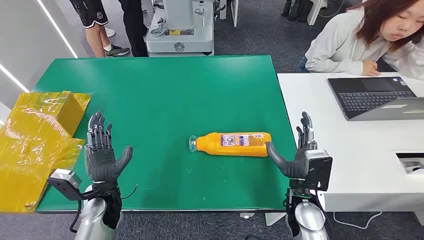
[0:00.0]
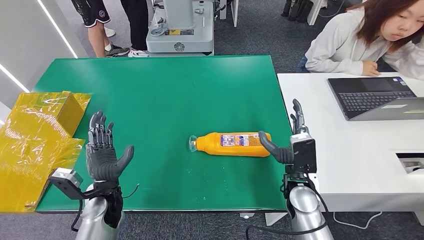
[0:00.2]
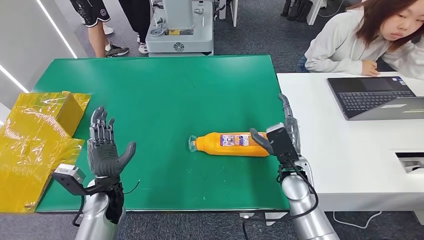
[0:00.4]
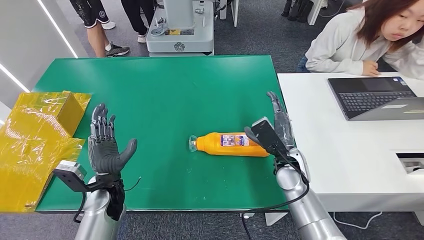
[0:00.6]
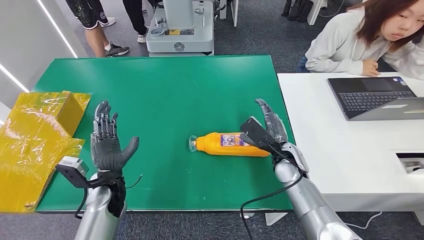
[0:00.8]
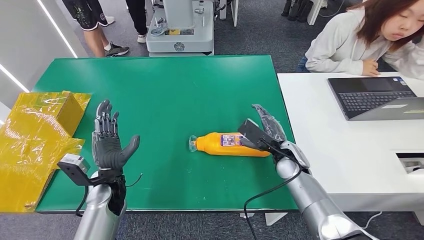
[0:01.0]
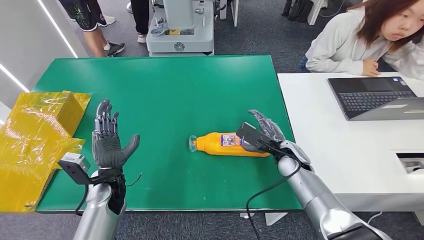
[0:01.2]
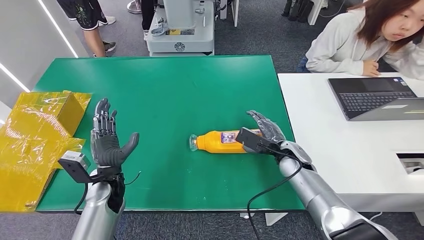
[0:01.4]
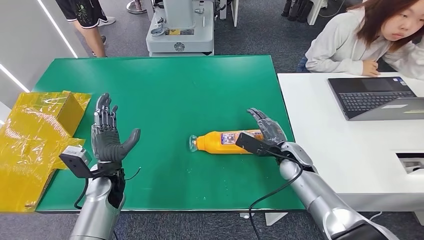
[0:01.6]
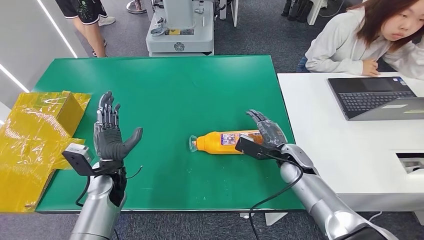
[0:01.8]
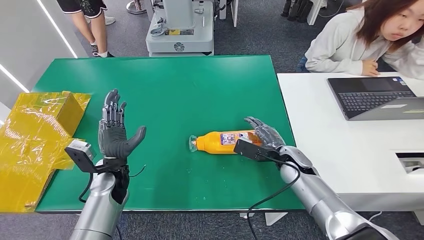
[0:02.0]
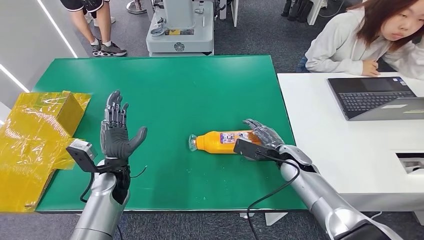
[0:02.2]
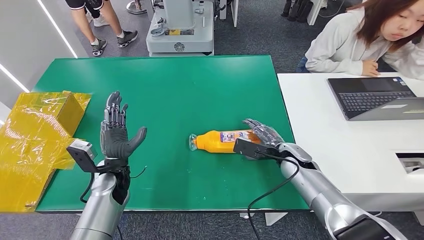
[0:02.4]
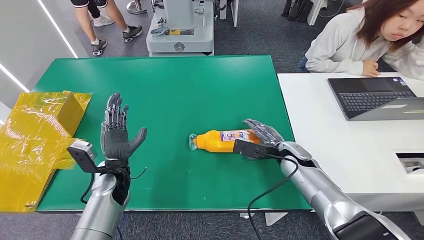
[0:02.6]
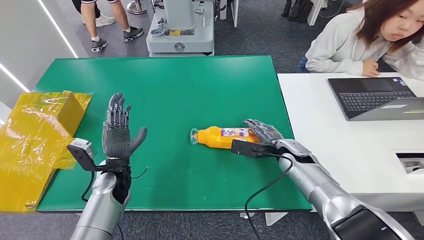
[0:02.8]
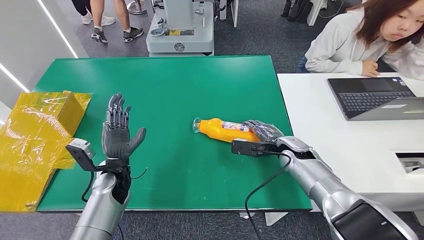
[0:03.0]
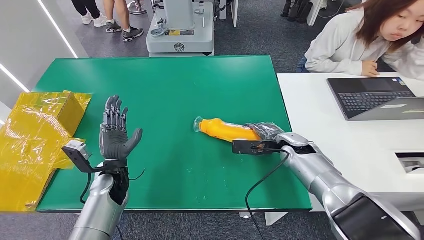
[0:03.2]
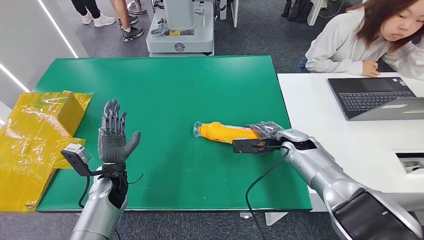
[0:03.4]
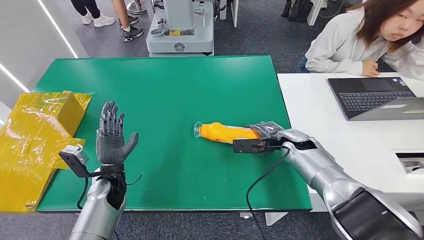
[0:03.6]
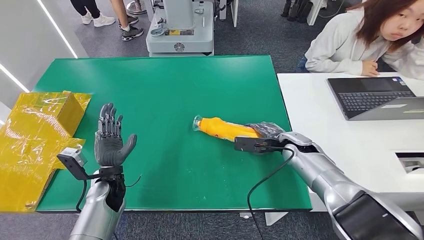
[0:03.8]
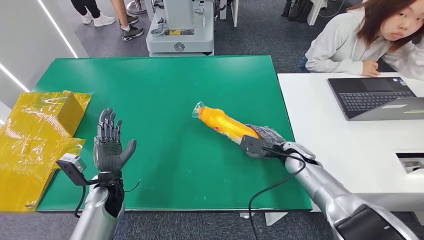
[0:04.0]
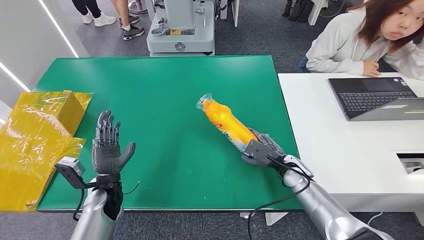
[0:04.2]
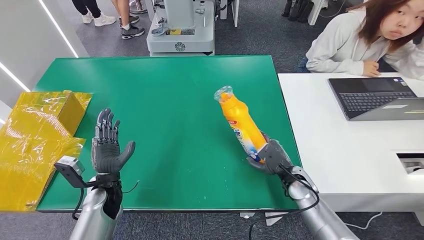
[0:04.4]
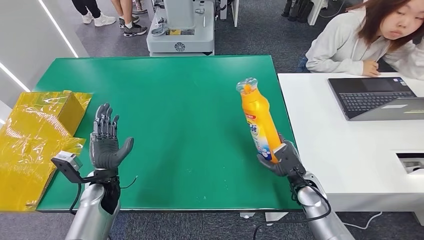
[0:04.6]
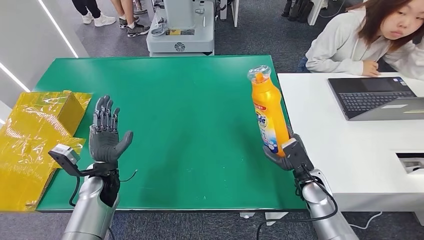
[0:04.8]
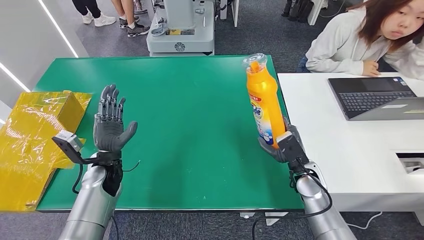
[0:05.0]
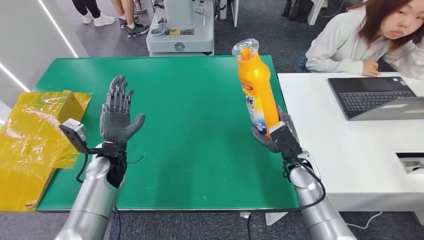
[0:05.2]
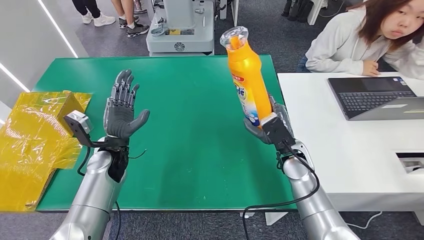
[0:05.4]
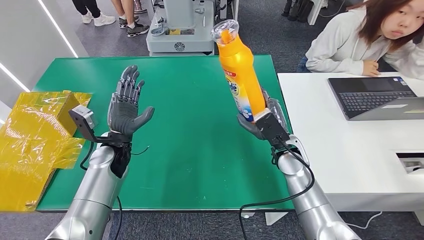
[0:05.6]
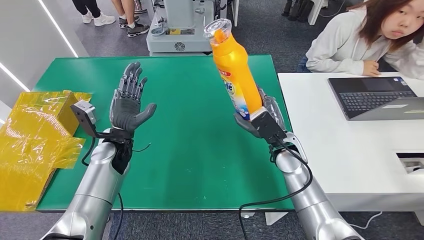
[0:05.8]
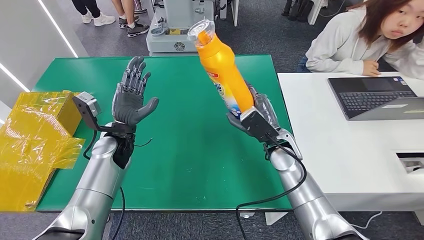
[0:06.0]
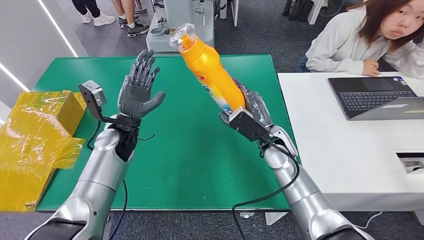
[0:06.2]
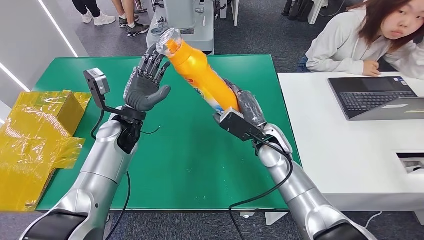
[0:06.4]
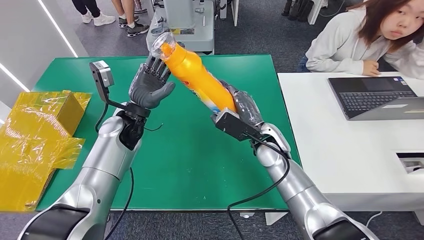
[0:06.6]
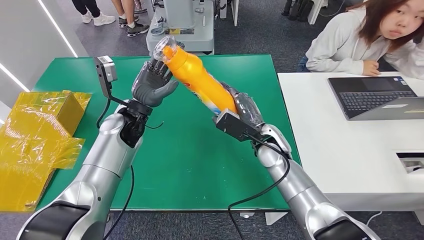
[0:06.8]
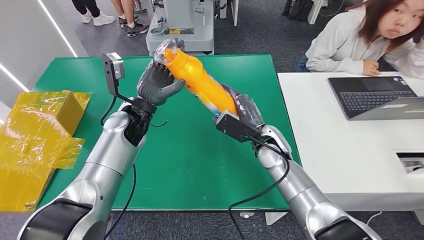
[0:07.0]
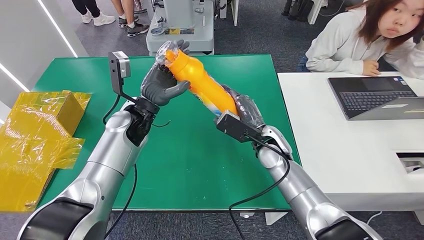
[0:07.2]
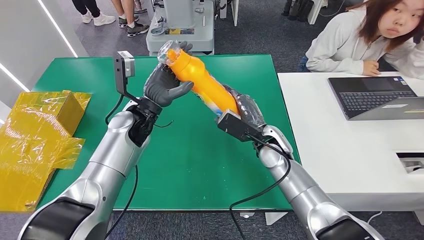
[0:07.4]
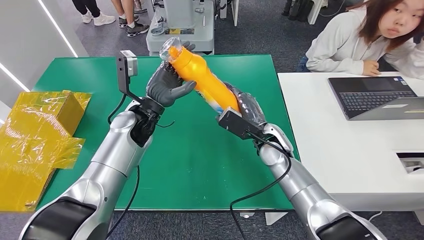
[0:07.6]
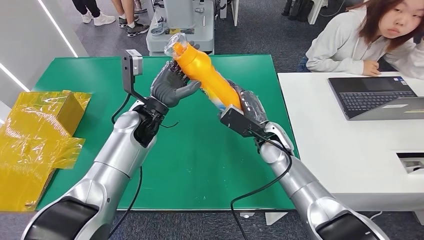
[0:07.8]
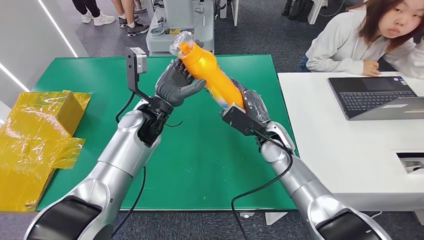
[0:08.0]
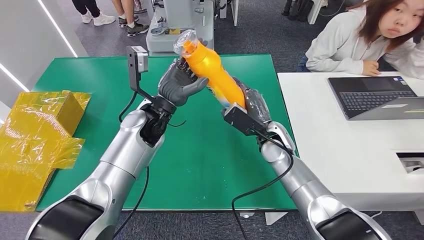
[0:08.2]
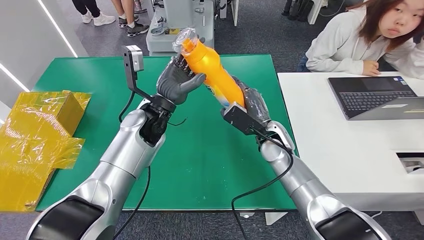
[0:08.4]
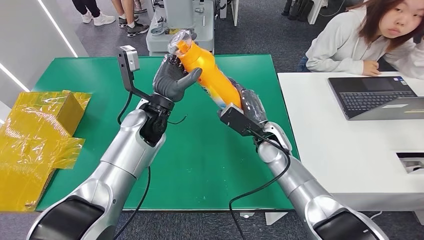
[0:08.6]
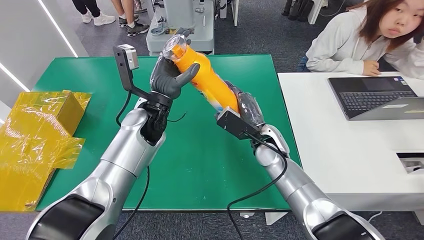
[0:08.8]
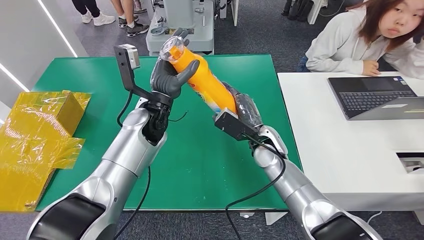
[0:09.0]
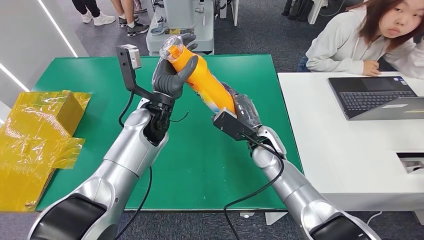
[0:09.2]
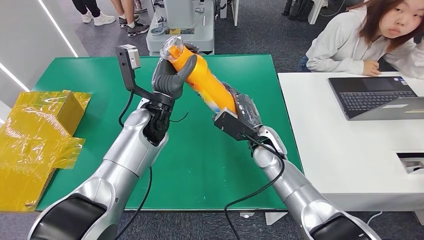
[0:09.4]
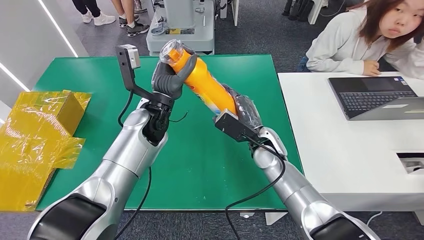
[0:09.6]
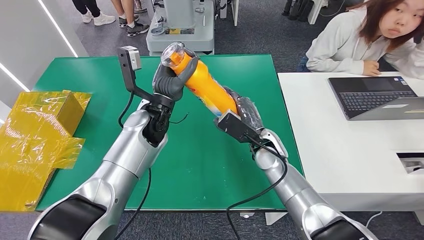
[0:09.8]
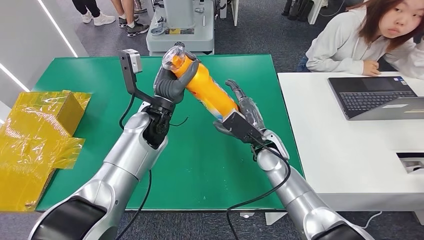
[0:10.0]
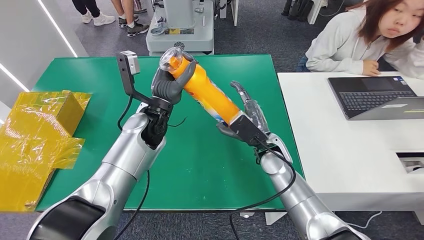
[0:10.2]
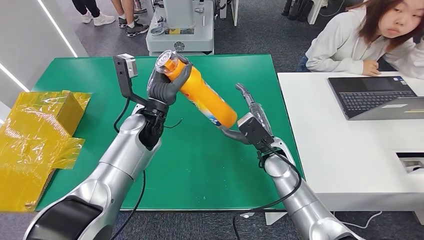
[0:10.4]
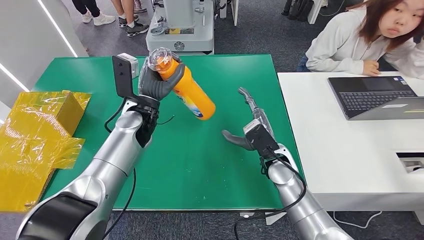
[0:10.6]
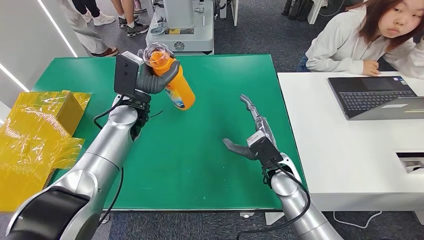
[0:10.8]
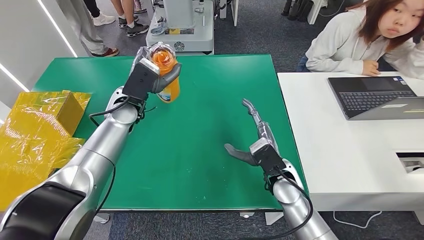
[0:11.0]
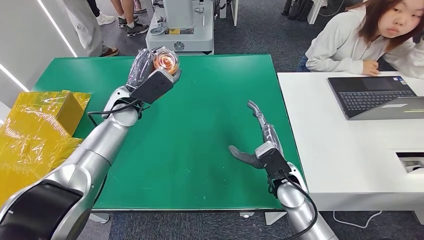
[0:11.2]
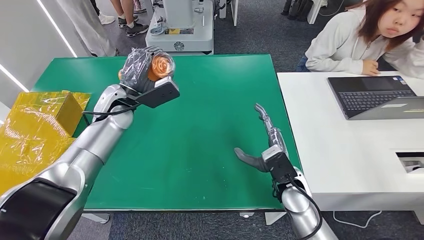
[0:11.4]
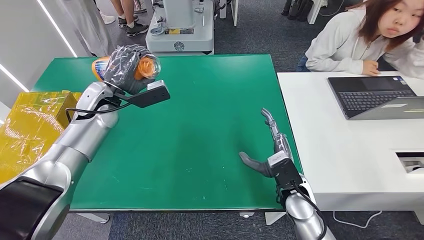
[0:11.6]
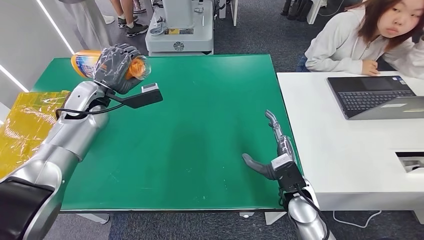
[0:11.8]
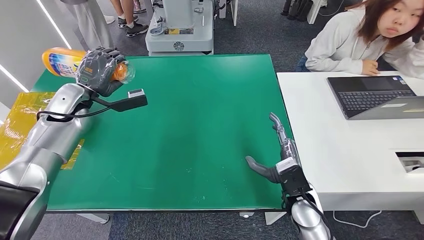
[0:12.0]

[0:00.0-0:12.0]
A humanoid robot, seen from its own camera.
Step, 0:00.0 to 0:05.6: Pick up the bottle from the table.
0:03.0 to 0:04.4: The right hand moves backward and downward, some 10 cm.
0:04.4 to 0:06.0: The left hand travels upward and forward by roughly 15 cm. Meanwhile the right hand goes about 15 cm upward, to the left and forward.
0:06.0 to 0:07.6: The left hand heads to the right and upward, covering about 10 cm.
0:07.6 to 0:10.4: There are only small adjustments of the hands.

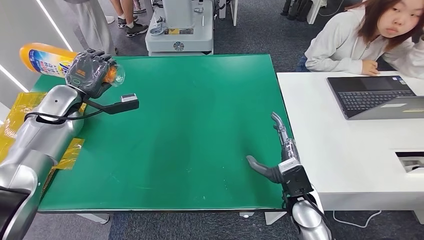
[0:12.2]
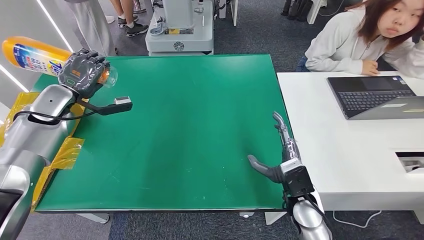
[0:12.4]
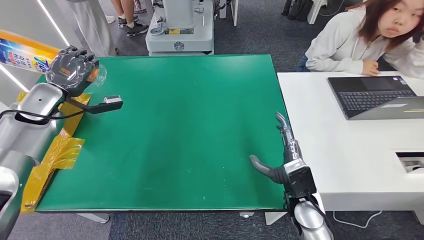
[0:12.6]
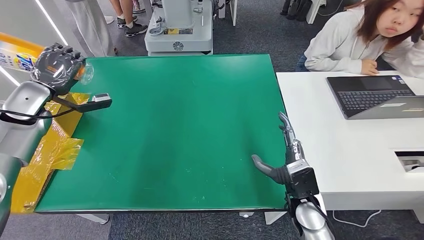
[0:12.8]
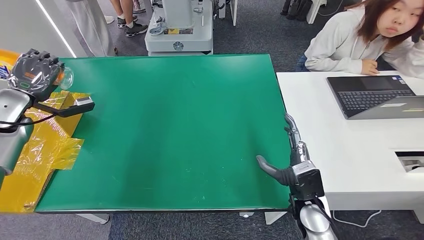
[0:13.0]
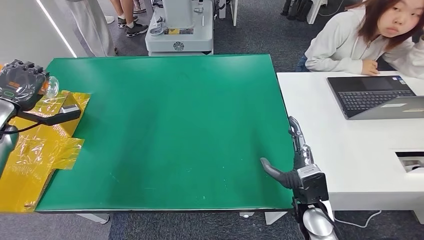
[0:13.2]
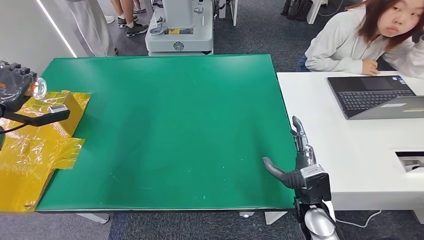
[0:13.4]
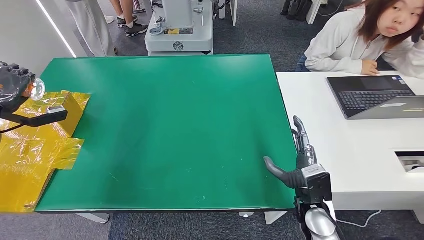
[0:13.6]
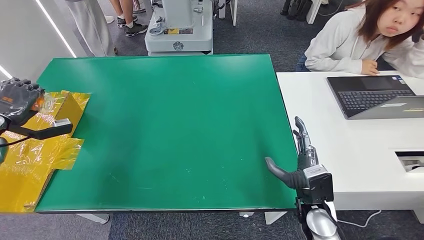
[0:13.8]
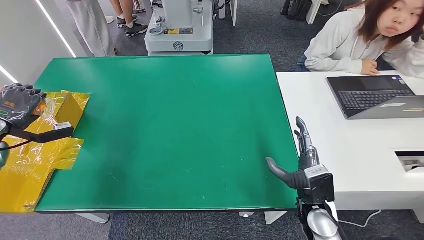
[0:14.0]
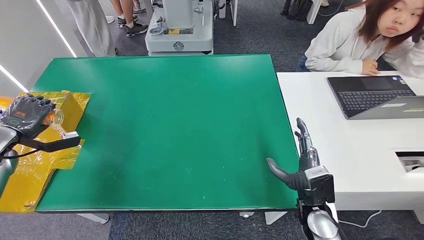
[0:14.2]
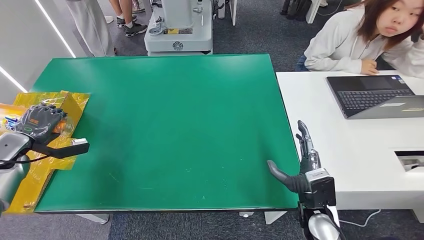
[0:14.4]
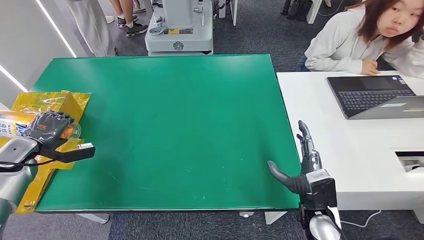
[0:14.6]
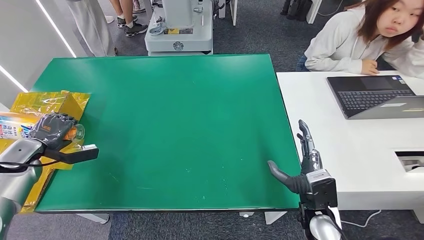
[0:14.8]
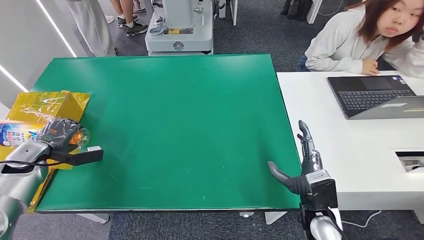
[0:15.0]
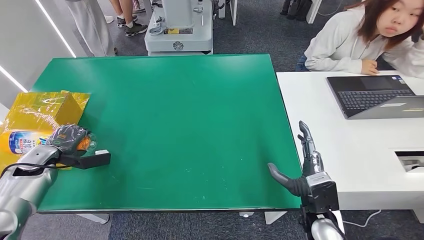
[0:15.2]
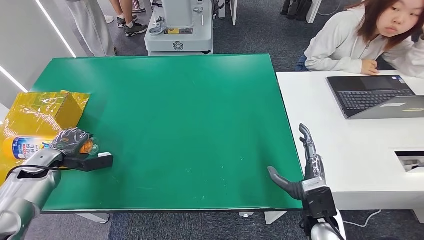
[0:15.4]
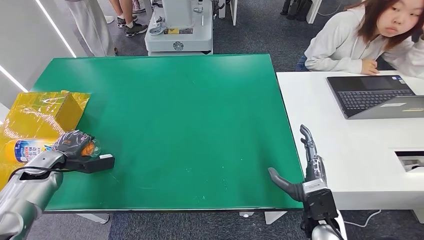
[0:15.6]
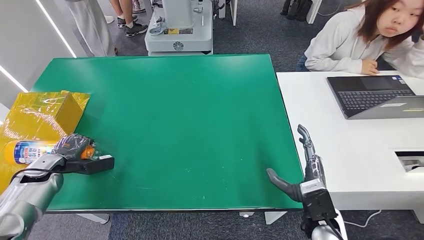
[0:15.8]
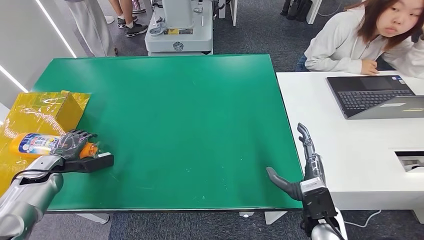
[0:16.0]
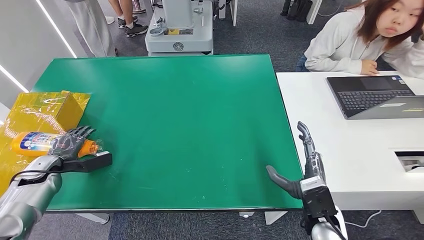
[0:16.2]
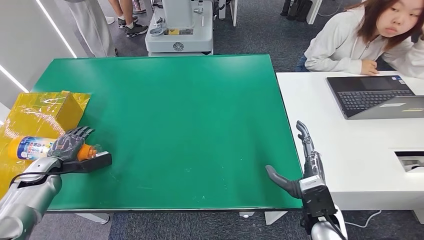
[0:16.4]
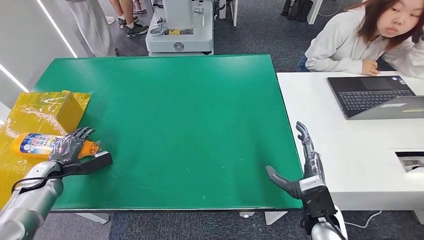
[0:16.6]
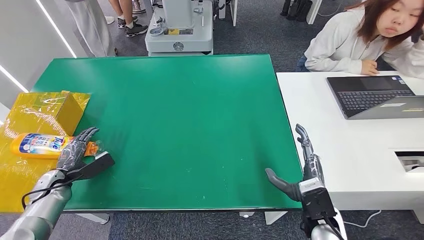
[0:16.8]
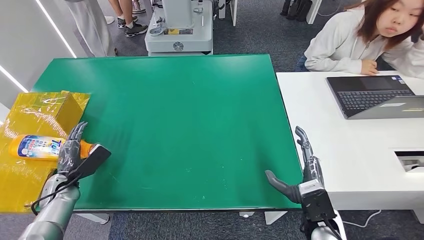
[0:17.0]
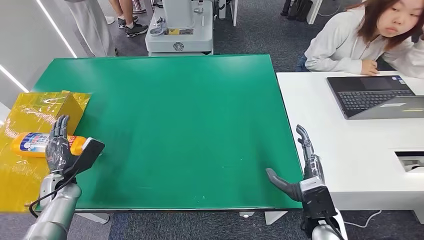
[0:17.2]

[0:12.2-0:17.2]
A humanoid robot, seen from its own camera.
Step, 0:12.2 to 0:17.0: Turn the bottle to the front side.
0:12.2 to 0:13.8: The left hand is displaced to the left by about 15 cm.
0:13.8 to 0:15.6: The left hand goes approximately 15 cm downward and to the right.
0:15.6 to 0:17.2: The left hand travels to the right by approximately 5 cm.
